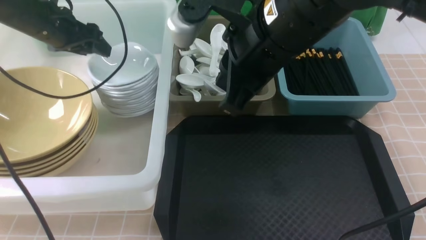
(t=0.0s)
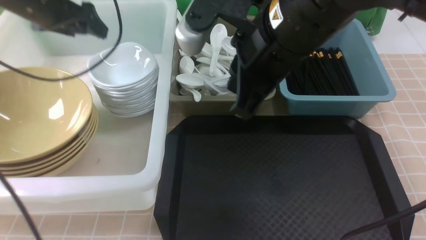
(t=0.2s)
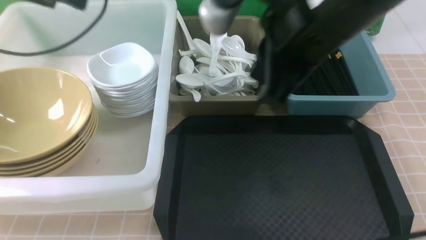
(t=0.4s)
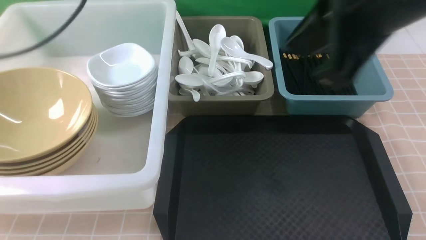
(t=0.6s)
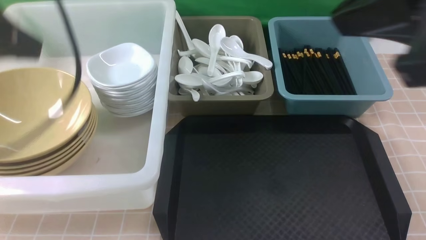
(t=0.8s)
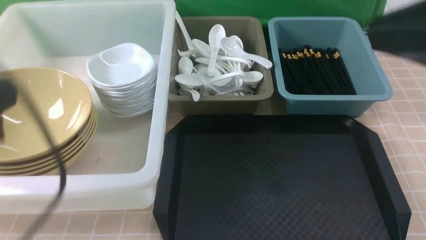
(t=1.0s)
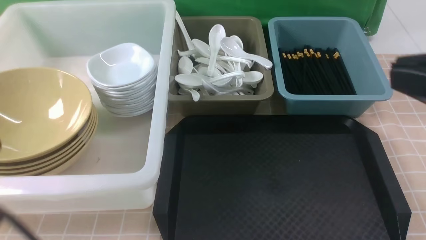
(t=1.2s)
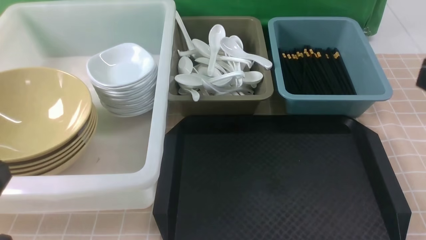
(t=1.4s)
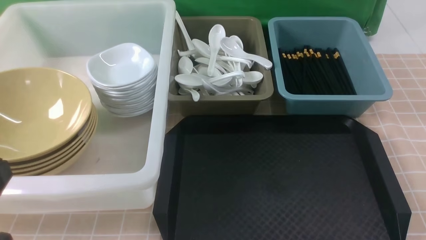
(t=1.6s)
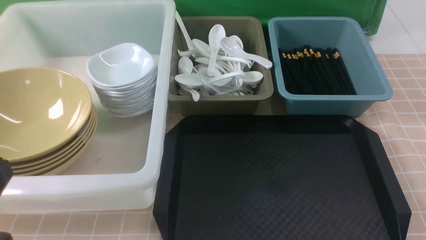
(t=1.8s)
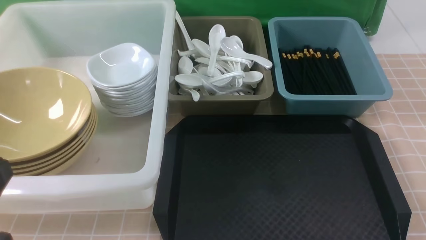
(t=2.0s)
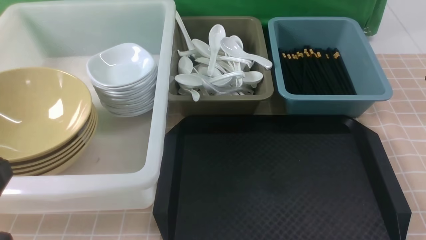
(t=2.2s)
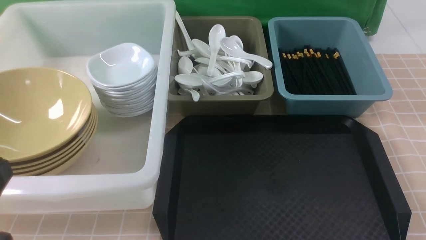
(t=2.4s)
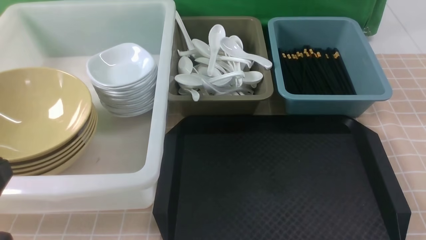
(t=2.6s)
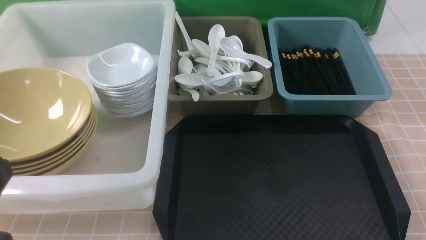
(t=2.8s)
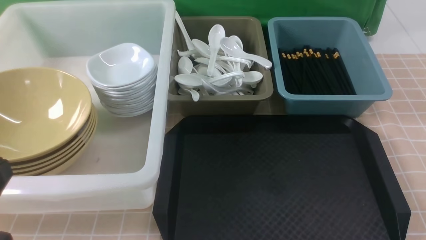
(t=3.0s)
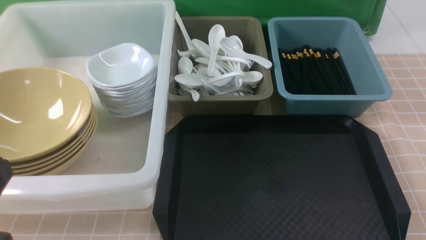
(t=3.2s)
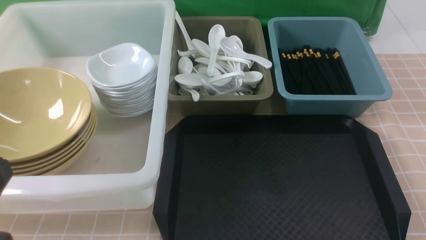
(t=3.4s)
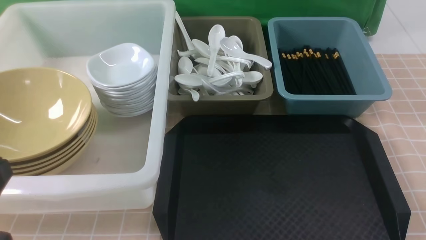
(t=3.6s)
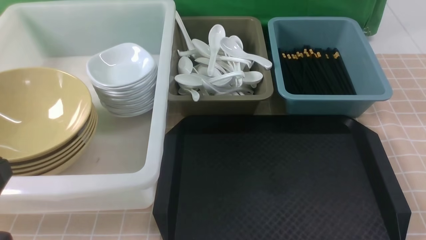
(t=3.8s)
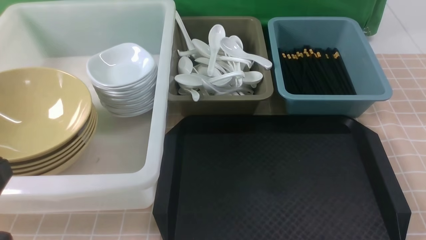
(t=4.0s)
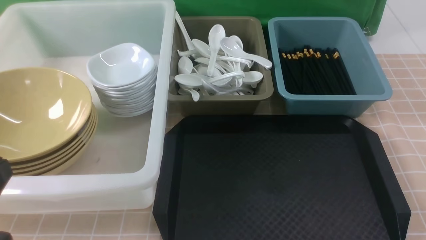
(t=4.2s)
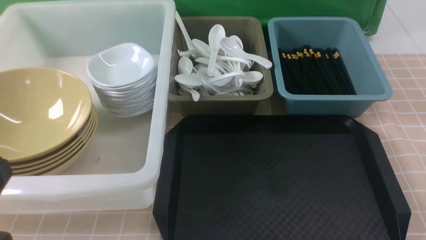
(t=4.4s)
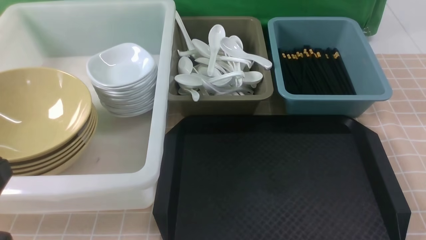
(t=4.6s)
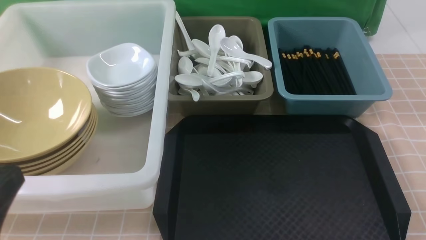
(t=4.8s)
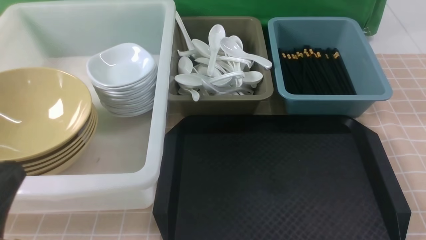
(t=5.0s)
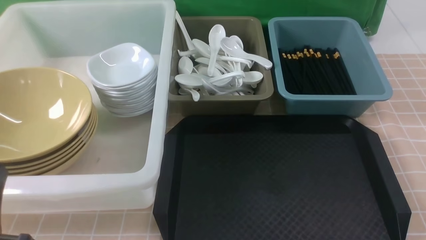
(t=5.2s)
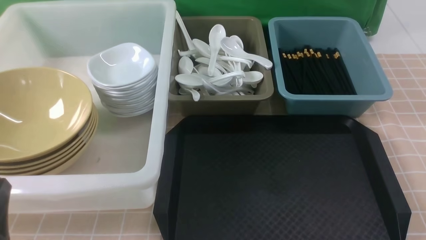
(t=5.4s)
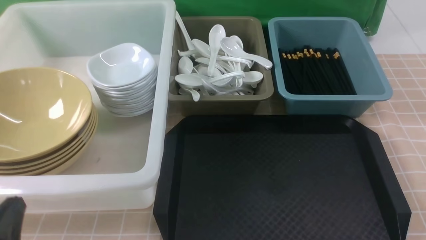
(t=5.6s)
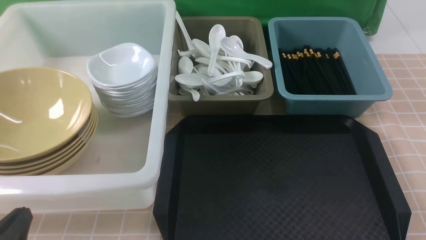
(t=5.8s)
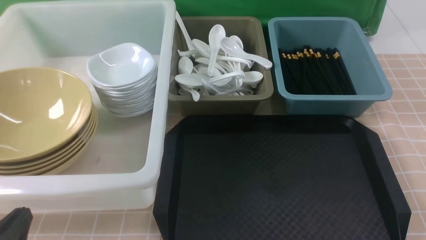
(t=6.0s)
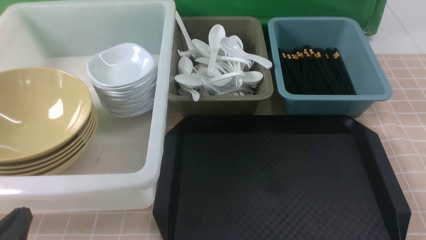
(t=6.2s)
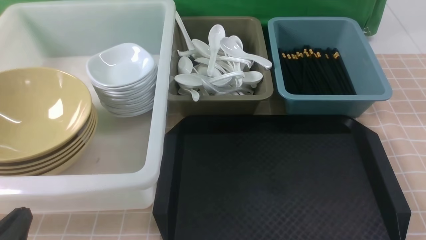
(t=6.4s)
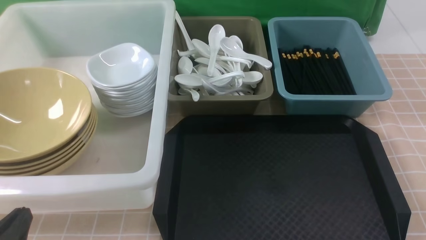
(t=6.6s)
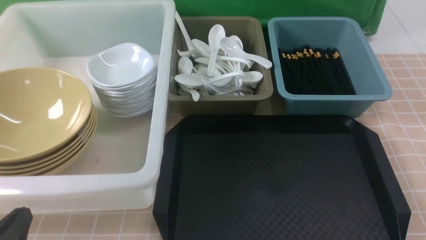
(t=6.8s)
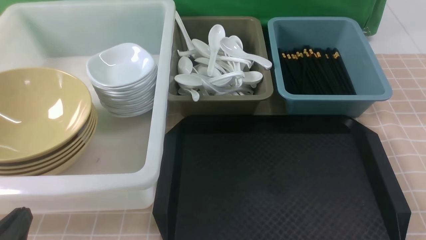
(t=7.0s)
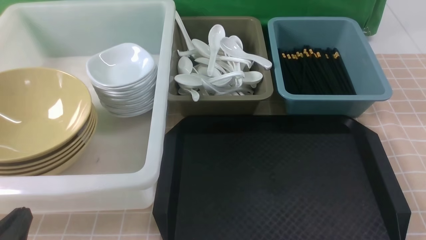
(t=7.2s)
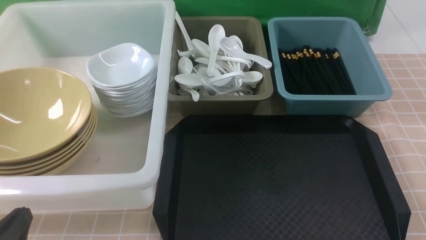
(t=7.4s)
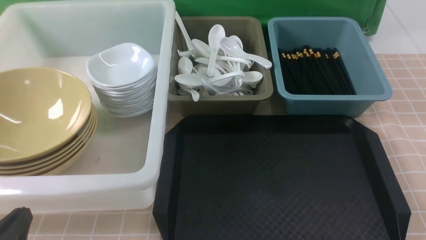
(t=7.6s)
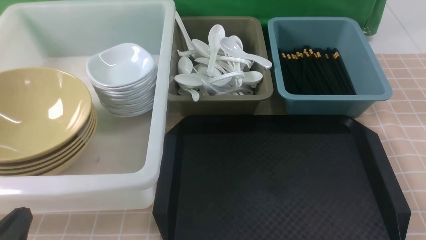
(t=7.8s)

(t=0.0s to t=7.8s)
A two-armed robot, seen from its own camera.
Task of the whole recording: on brown table put chopsticks spoon bowls plates into blue grey white boxes.
t=0.0s - t=1.6s: The left gripper travels backward by roughly 40 cm, and closes up. The right gripper goes some 25 cm backward and to the right.
t=4.6s - t=6.2s: The left gripper goes roughly 15 cm downward.
t=6.2s - t=7.8s: Both grippers stay put.
